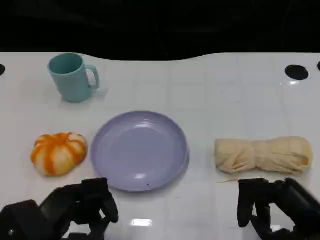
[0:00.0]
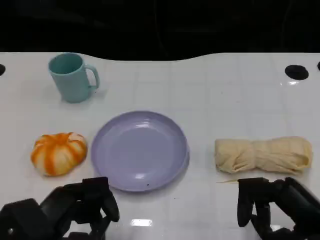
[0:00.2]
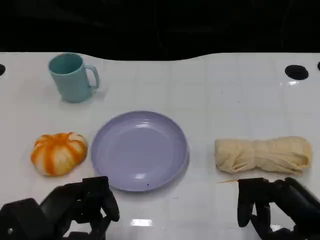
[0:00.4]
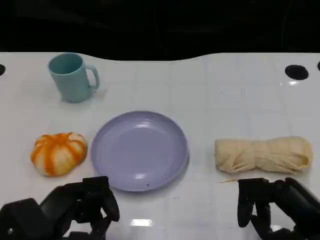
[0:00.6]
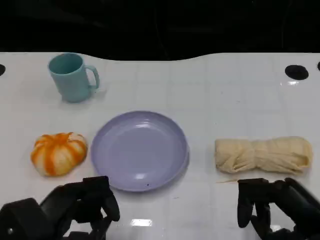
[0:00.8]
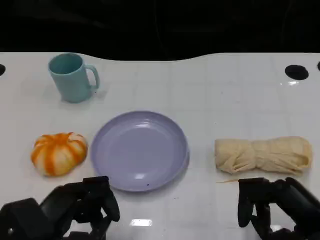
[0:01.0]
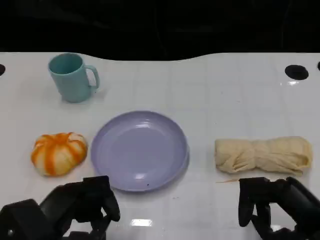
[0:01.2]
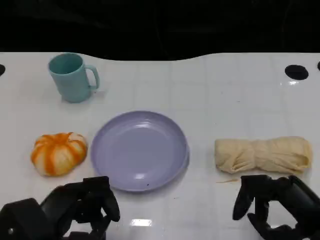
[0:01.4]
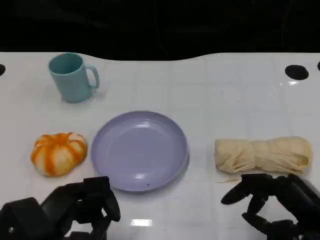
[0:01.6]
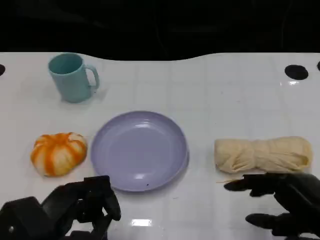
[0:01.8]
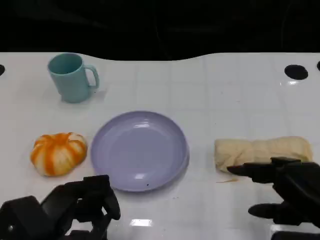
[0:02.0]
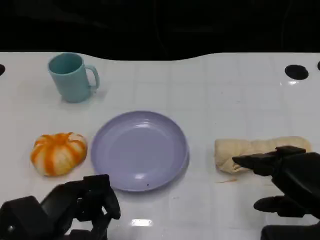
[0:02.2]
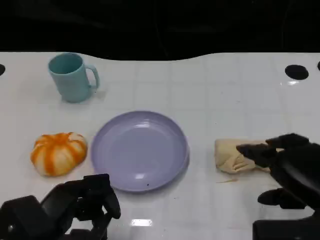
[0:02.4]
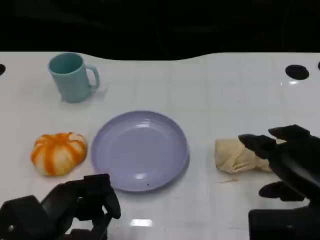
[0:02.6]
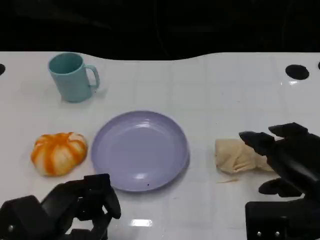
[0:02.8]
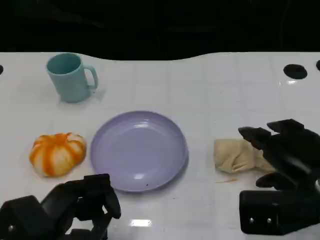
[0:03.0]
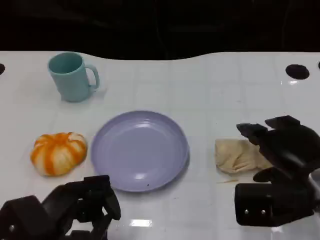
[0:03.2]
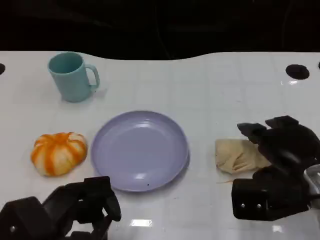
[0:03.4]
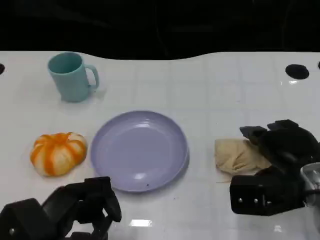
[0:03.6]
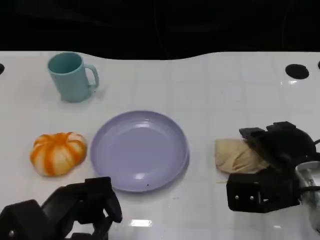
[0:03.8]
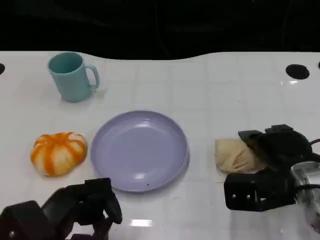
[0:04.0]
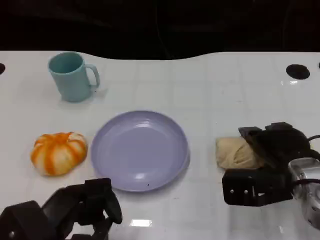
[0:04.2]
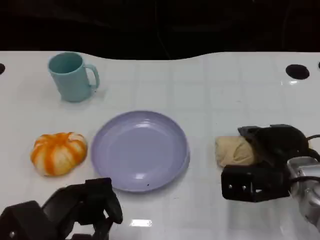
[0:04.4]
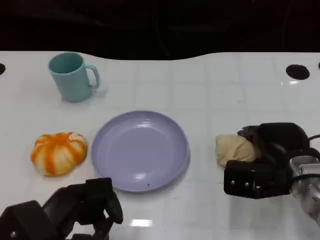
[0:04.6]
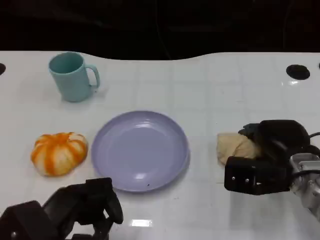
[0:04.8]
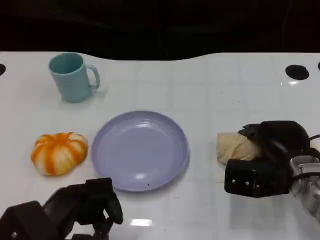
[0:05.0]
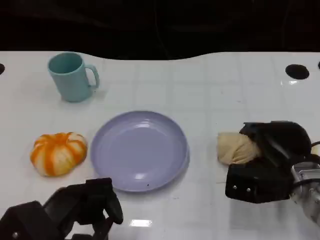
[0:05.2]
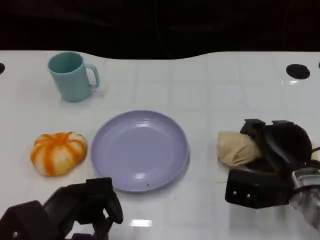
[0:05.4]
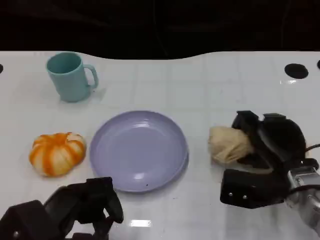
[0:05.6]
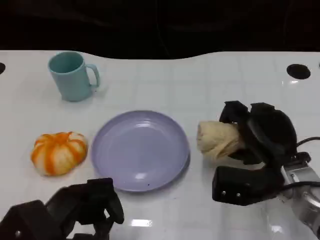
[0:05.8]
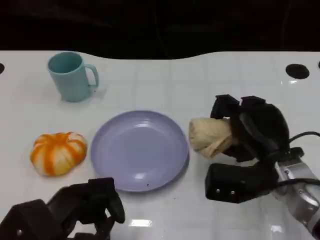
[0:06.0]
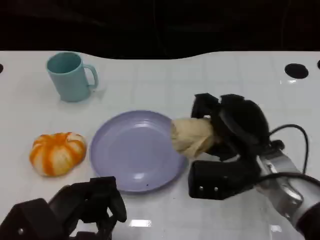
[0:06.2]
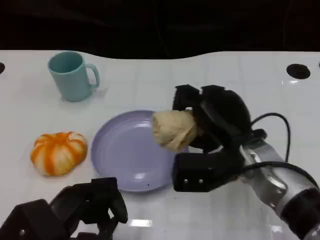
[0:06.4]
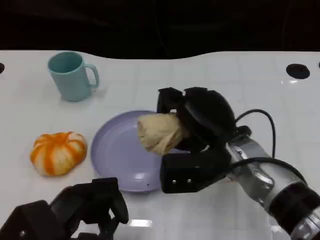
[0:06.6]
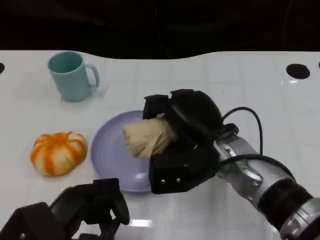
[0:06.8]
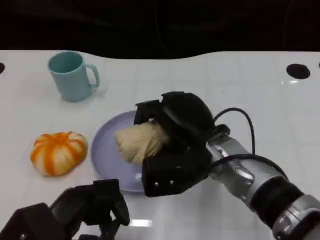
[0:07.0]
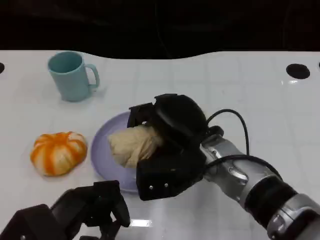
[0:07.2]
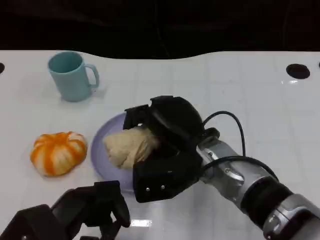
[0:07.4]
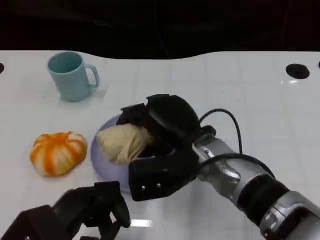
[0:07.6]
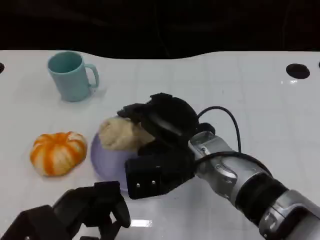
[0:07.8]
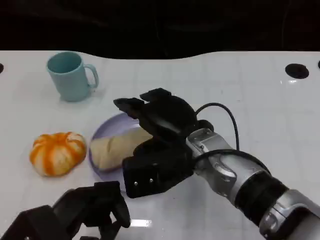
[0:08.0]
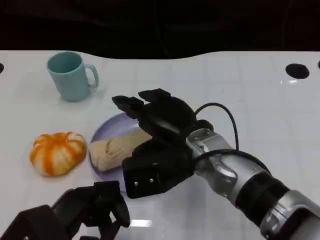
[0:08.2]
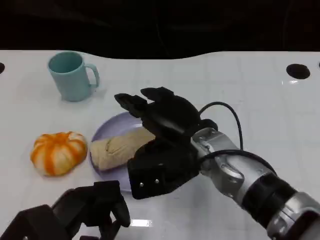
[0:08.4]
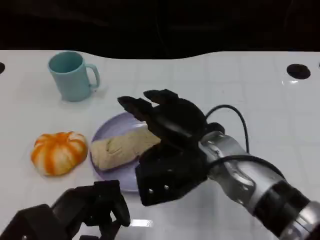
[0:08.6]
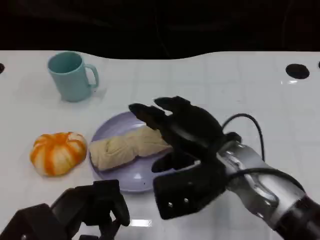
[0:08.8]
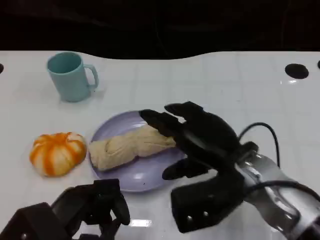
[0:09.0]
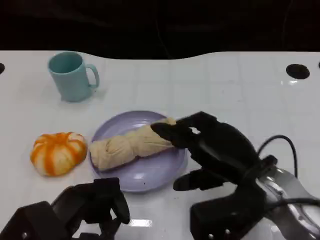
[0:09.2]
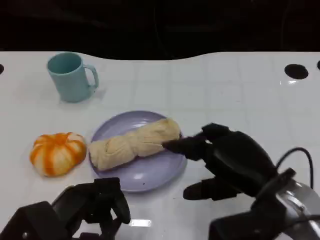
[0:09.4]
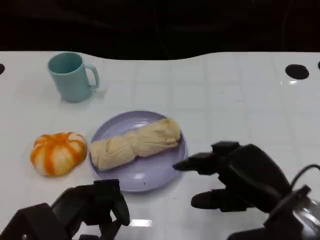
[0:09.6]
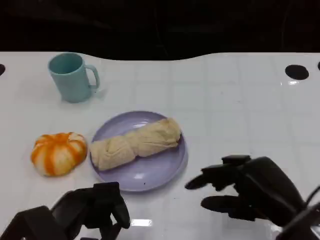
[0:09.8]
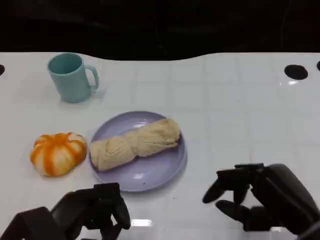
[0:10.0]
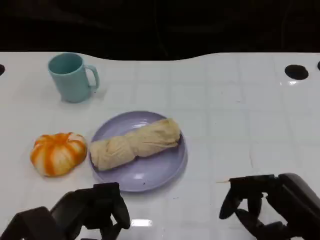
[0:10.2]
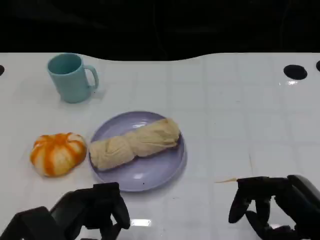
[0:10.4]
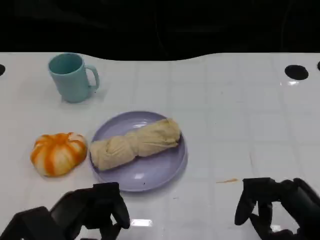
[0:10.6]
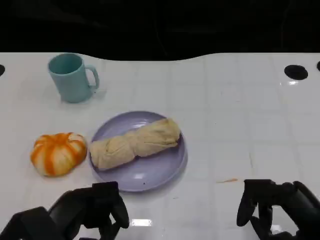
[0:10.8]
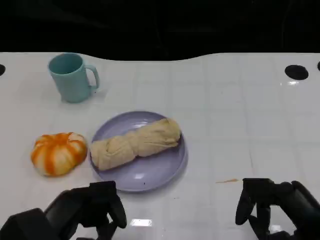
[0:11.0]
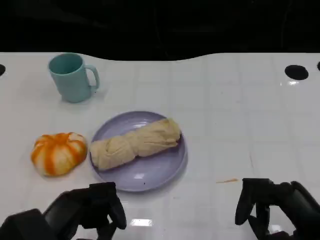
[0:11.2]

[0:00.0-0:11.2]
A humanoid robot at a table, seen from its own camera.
Task of the whole recording: Grasp the towel on the left side of the plate with the left hand and place it into the plate.
0:00.0 to 0:01.6: The hands make only small movements.
0:01.6 to 0:03.2: The right hand travels forward by approximately 10 cm.
0:03.2 to 0:04.8: The right hand moves downward and forward, about 10 cm.
0:04.8 to 0:06.4: The right hand goes roughly 10 cm to the left.
0:06.4 to 0:08.0: The right hand is displaced to the left by approximately 5 cm.
0:08.0 to 0:09.6: The right hand travels to the right and backward by roughly 15 cm.
0:09.6 to 0:11.2: The right hand is displaced to the right by approximately 5 cm.

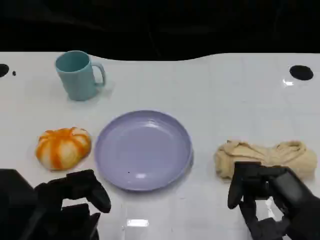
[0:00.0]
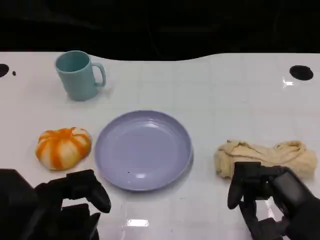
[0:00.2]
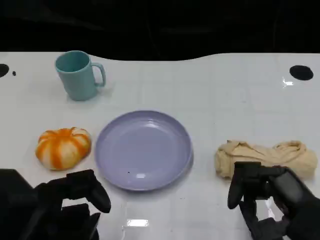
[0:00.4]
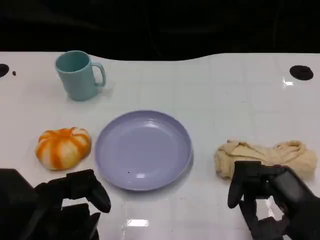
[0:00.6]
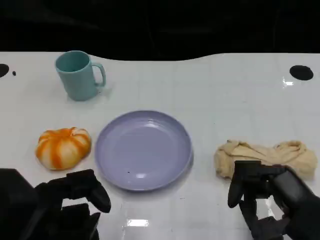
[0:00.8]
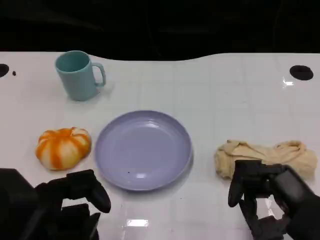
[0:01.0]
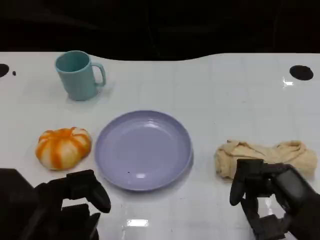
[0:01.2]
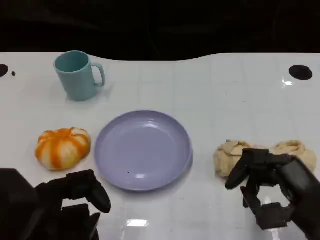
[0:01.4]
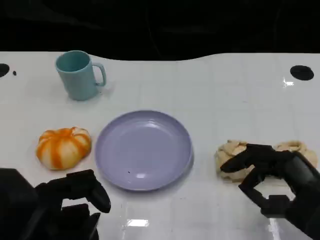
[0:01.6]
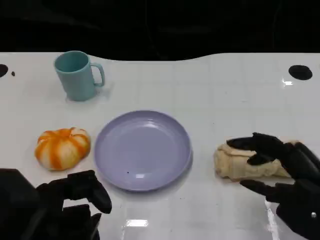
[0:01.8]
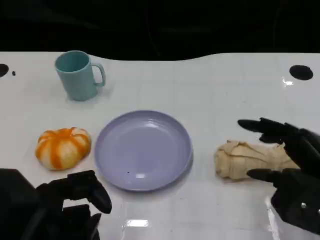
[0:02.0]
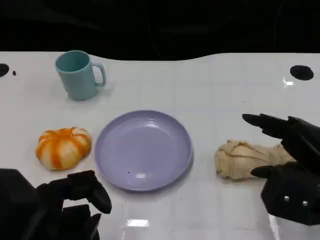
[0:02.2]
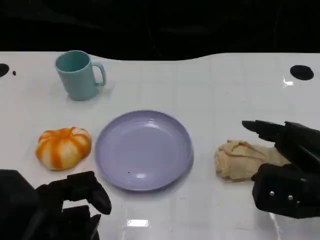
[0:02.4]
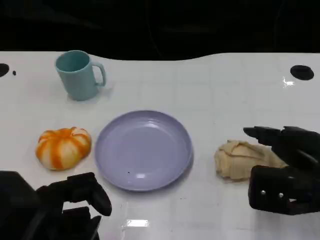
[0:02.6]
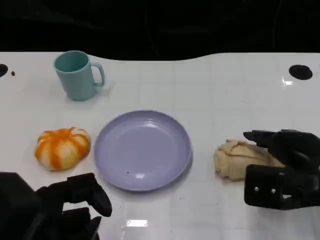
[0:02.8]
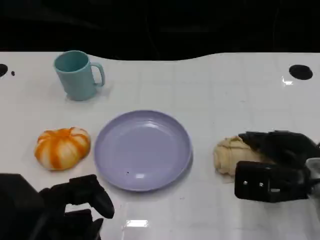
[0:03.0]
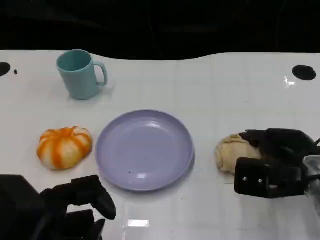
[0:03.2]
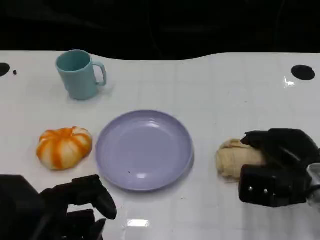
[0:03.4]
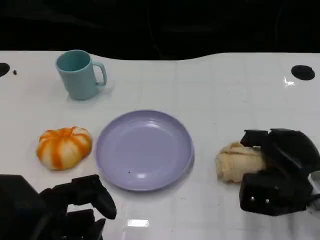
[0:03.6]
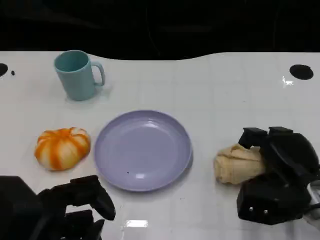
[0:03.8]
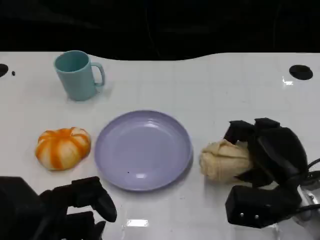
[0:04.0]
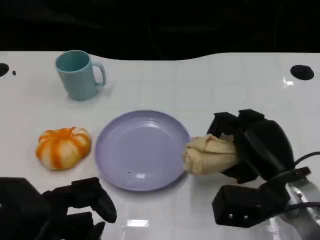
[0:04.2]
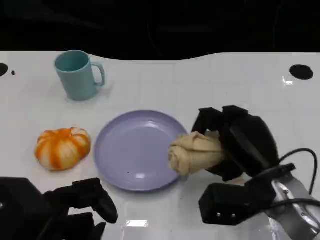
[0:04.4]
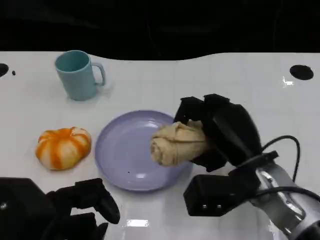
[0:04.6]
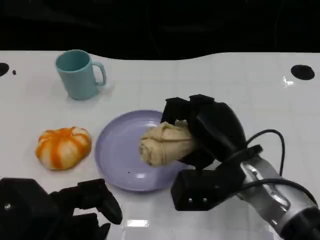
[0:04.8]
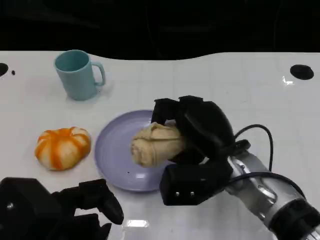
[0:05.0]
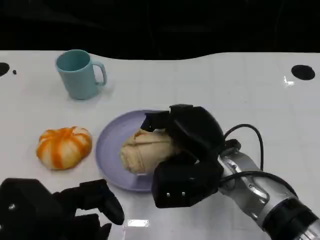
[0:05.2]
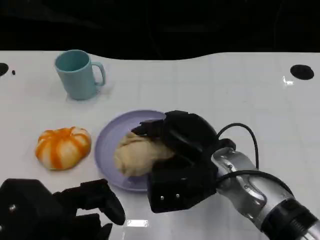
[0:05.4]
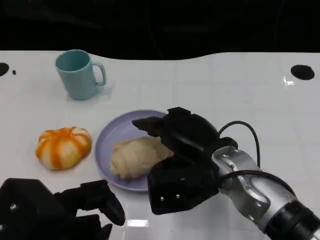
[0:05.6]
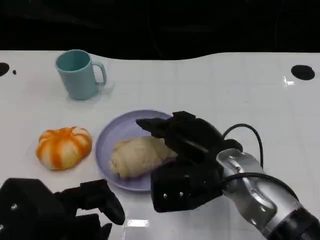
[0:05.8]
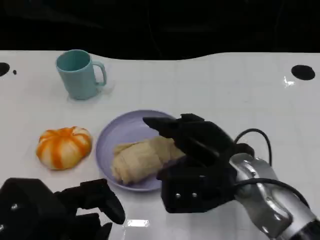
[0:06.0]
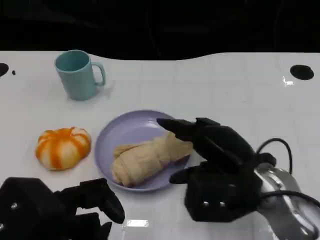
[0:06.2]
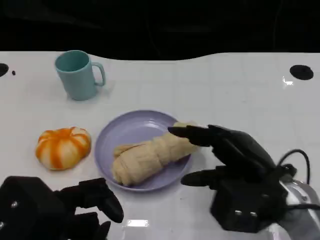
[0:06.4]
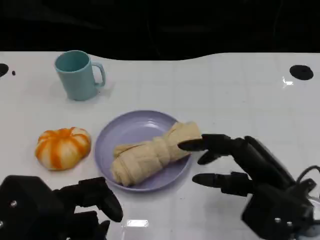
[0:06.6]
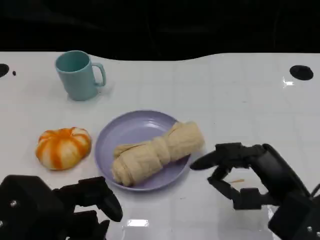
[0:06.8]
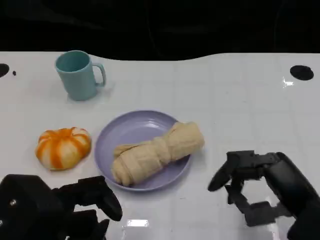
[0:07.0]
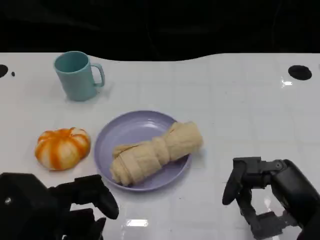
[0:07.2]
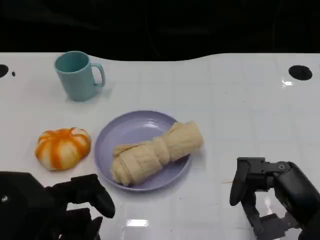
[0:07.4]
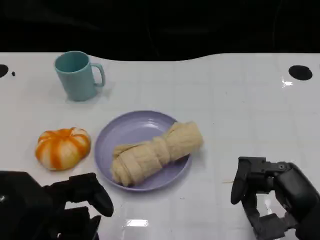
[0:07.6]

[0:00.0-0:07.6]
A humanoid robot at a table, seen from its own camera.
Task of the whole recording: Grasp the towel on the left side of the plate with the left hand and place it into the plate.
0:00.0 to 0:01.6: The hands move only a little.
0:01.6 to 0:03.0: The right hand travels forward by roughly 10 cm.
0:03.0 to 0:04.6: The right hand is displaced to the left by roughly 10 cm.
0:06.0 to 0:07.6: The right hand is displaced to the right and backward by roughly 15 cm.

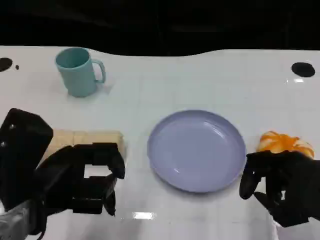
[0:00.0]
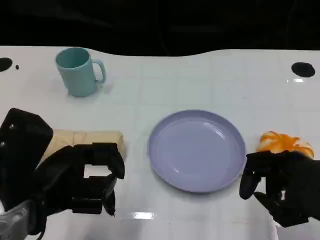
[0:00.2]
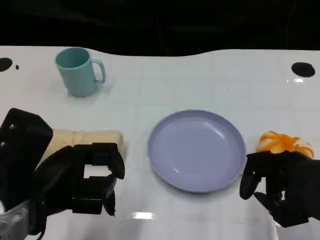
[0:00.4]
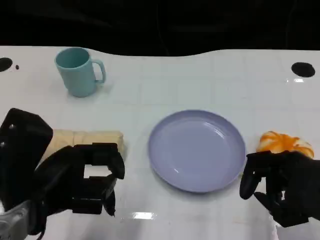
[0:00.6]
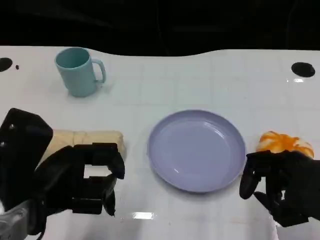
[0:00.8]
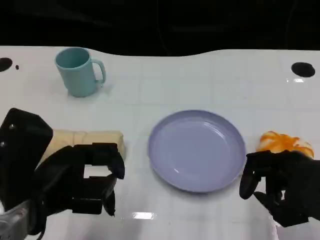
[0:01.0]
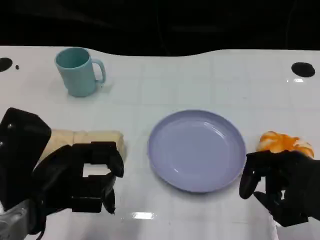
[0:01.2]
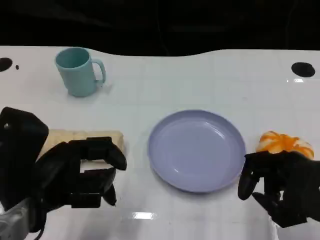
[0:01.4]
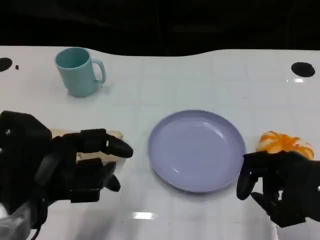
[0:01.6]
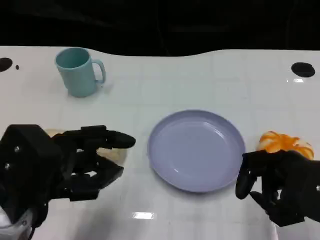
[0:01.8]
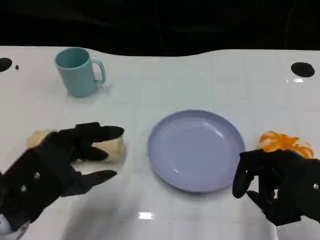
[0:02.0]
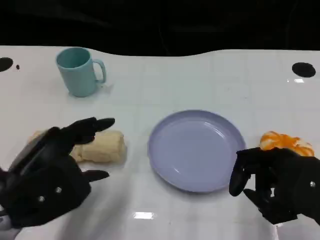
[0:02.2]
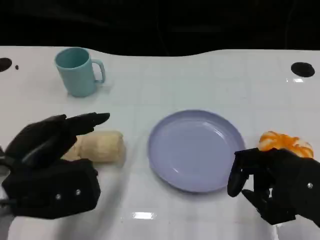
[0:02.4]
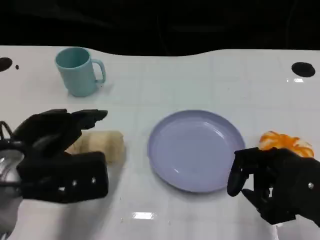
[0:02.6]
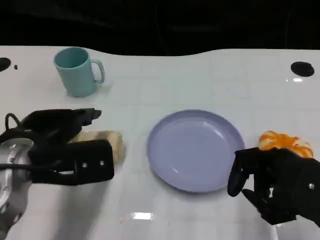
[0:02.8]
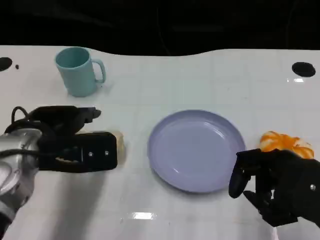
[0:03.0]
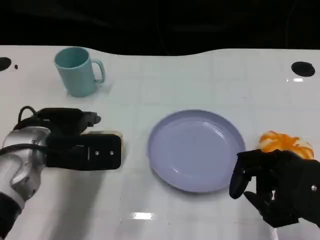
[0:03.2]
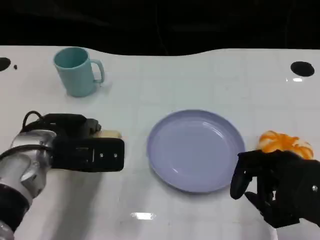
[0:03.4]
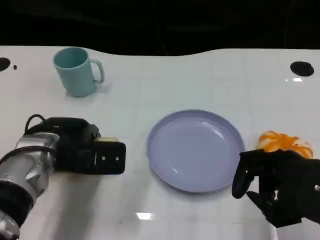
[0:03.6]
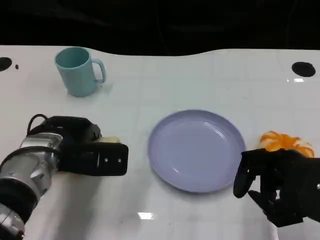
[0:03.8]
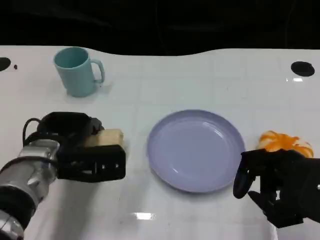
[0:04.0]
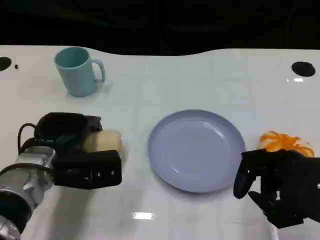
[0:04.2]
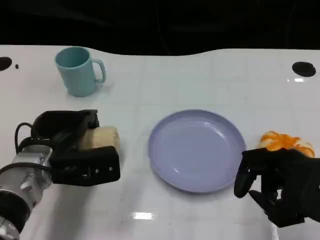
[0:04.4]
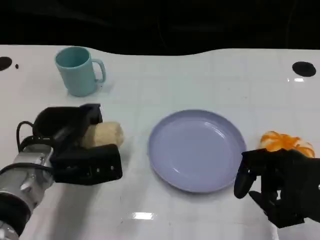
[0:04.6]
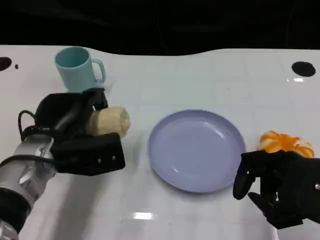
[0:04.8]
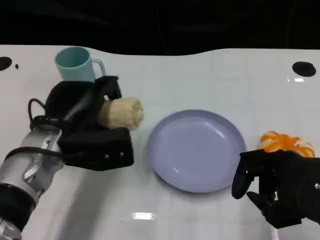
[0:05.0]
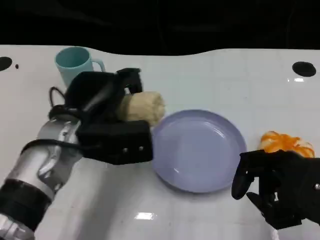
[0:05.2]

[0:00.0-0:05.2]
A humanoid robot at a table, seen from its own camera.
Task of the whole recording: Grasp the towel on the left side of the plate with the left hand and place it into the plate.
0:01.8 to 0:03.4: The left hand travels forward by some 10 cm.
0:03.4 to 0:05.2: The left hand travels to the right by some 5 cm.
